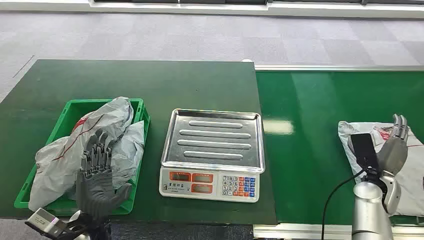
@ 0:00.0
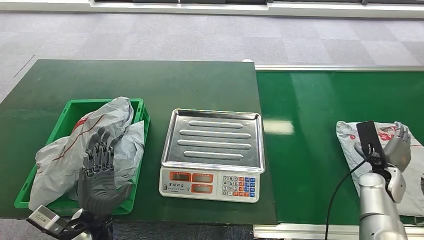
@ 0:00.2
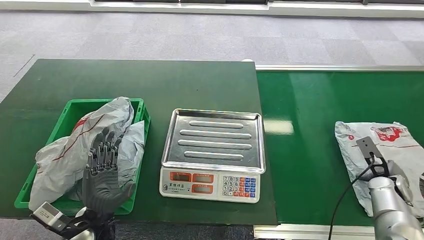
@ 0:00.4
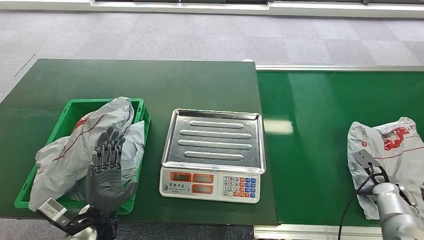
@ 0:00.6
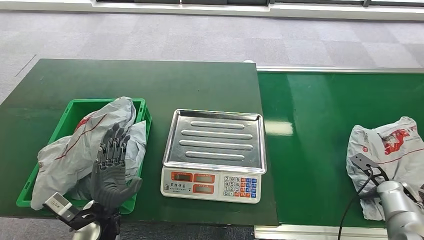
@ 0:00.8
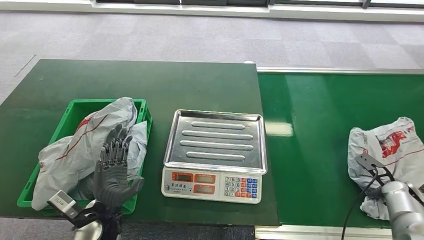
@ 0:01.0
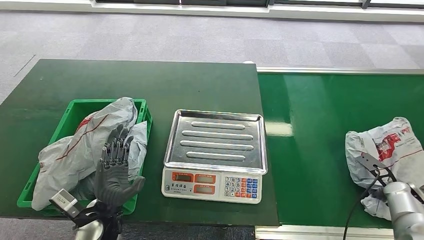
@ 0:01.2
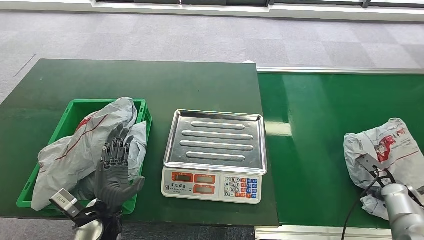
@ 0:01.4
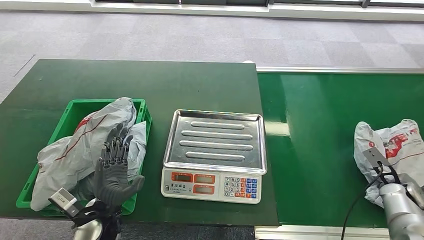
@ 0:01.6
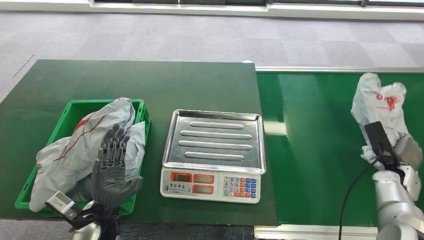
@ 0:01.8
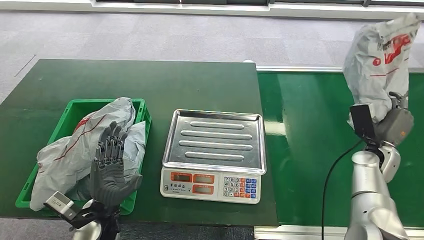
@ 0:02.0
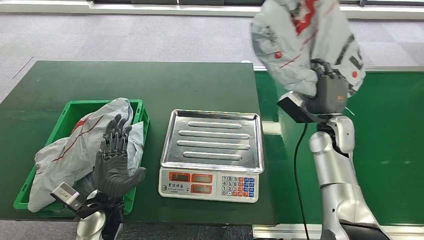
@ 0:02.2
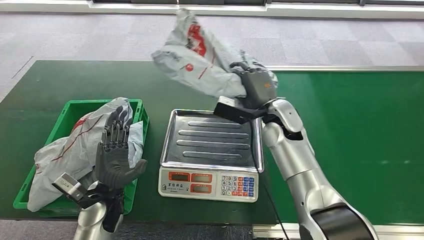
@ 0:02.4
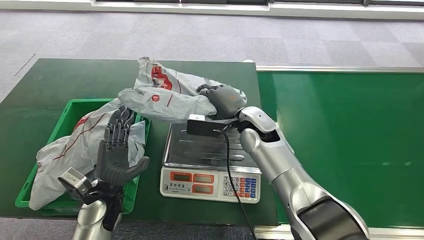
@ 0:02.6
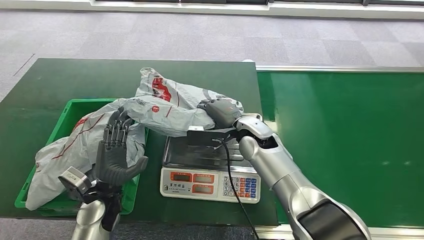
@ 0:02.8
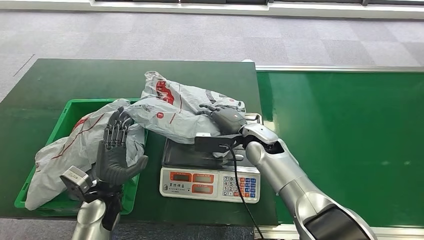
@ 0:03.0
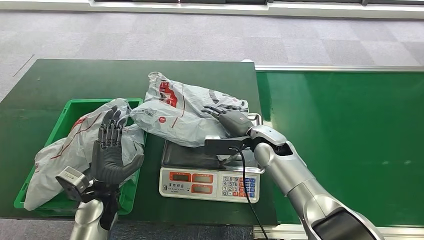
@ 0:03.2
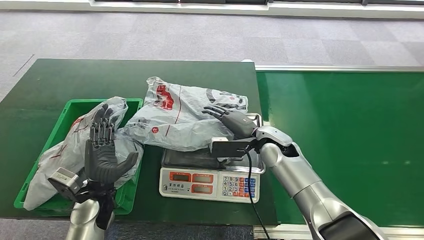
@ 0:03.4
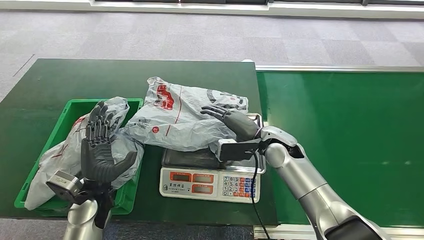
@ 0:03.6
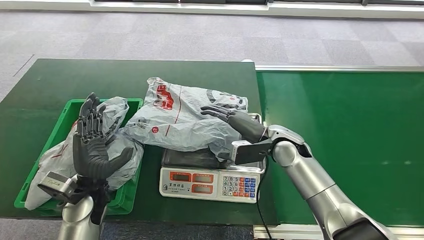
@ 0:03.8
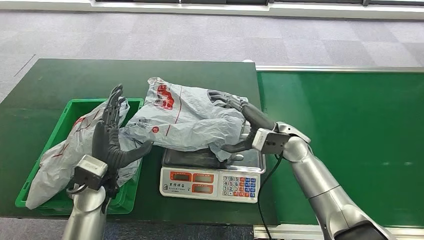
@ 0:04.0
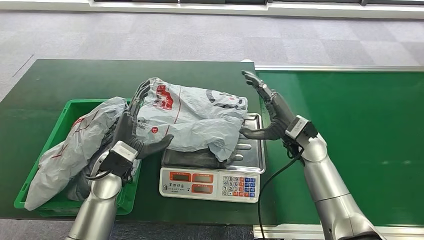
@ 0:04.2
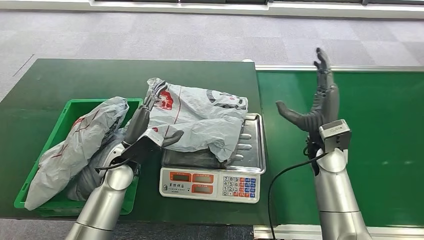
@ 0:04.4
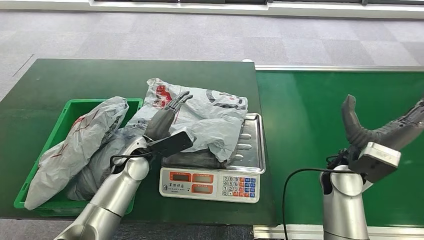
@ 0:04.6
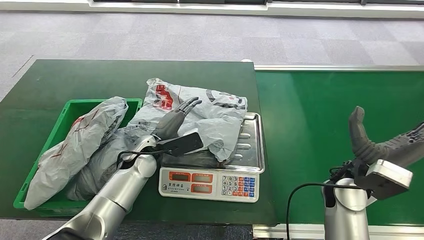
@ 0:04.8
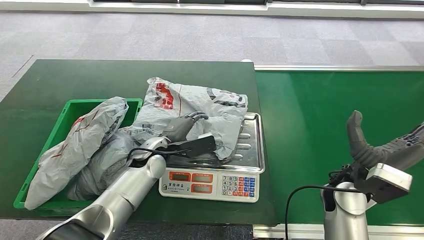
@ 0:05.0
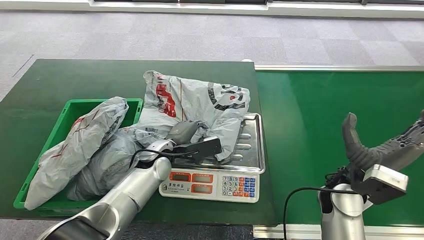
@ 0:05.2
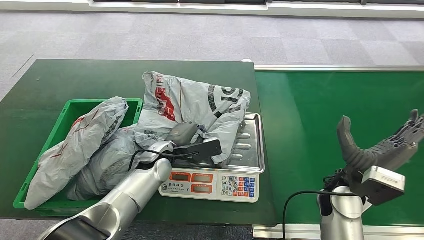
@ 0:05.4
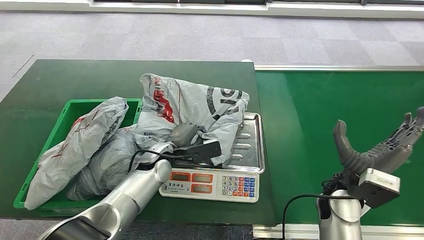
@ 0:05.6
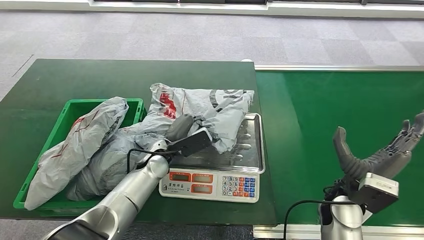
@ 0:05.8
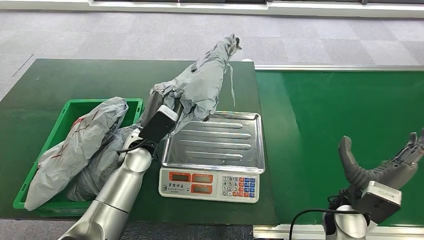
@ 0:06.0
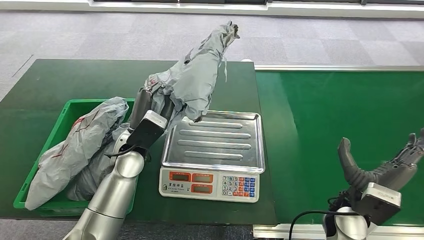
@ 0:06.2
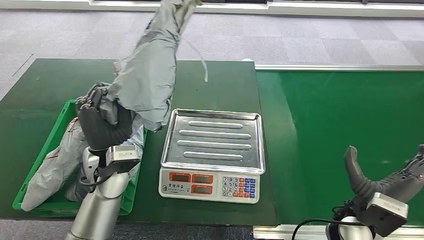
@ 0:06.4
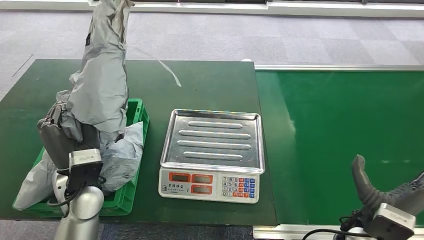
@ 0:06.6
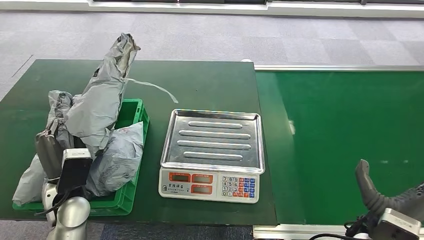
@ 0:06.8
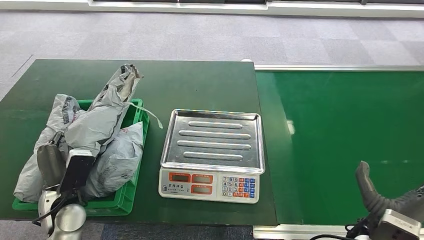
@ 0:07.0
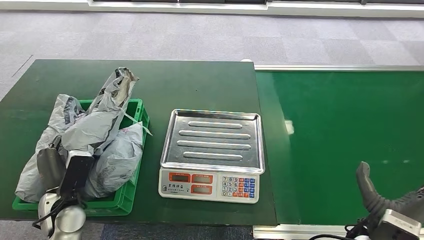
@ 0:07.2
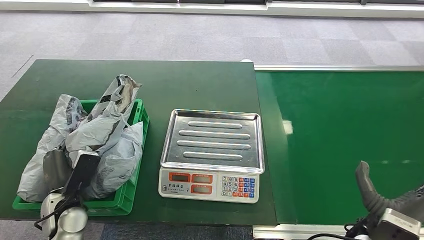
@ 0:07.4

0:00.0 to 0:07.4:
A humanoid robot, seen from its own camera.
Step, 0:00.0 to 0:02.2: Pick up the package from the conveyor belt.
Step, 0:02.4 to 0:04.0: Place the package onto the inbound machine.
Step, 0:04.4 to 0:06.2: Pick up the package from the inbound machine.
Step, 0:06.6 to 0:07.4: Place the package into the parcel locker.
